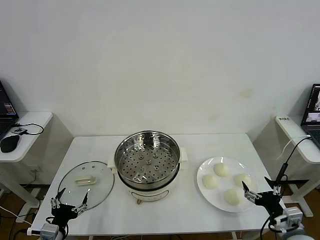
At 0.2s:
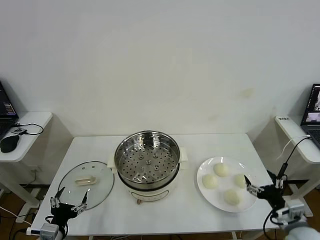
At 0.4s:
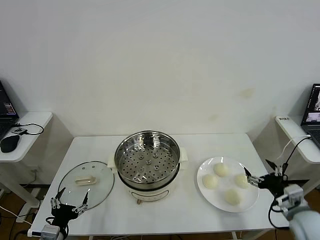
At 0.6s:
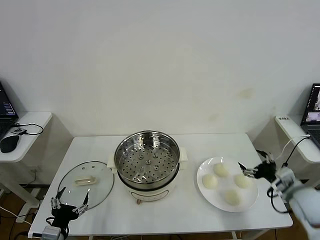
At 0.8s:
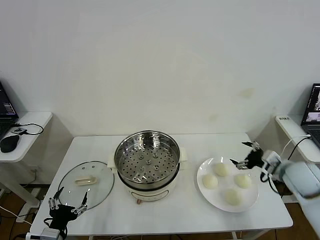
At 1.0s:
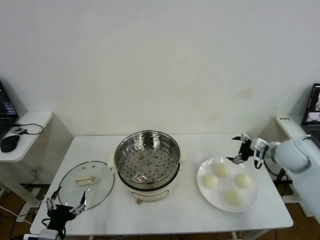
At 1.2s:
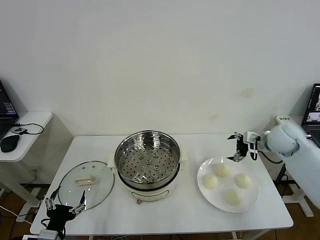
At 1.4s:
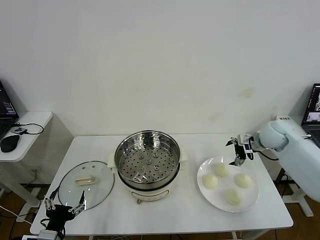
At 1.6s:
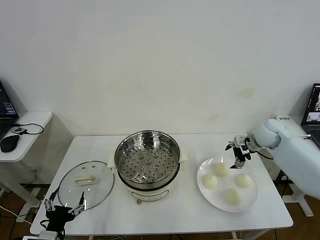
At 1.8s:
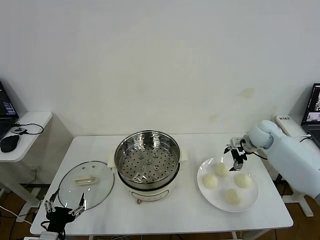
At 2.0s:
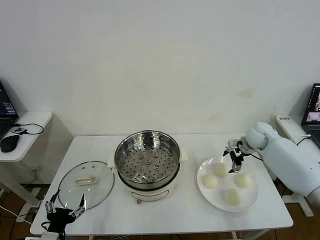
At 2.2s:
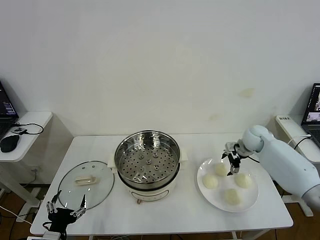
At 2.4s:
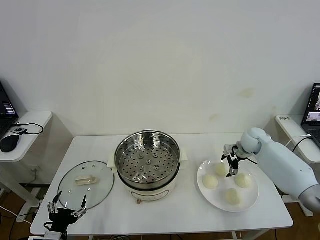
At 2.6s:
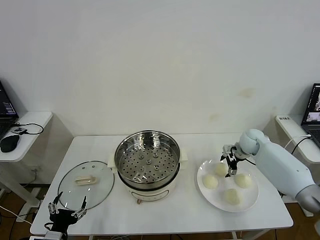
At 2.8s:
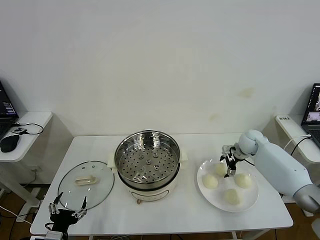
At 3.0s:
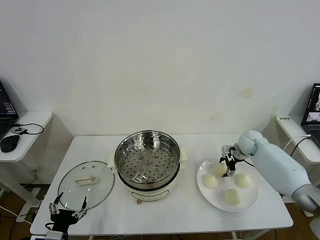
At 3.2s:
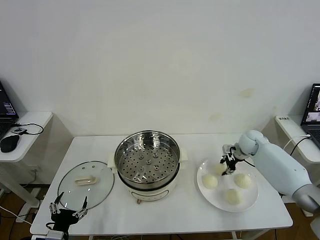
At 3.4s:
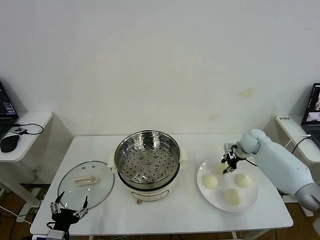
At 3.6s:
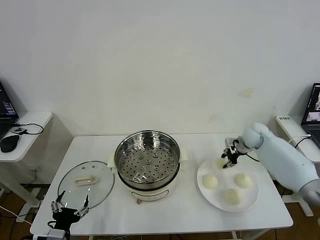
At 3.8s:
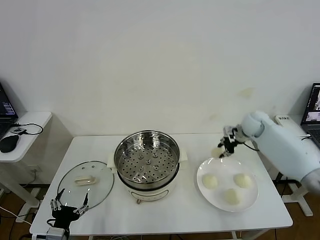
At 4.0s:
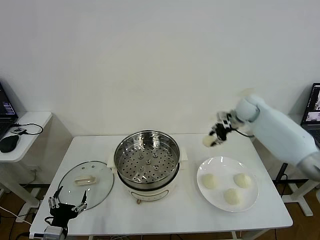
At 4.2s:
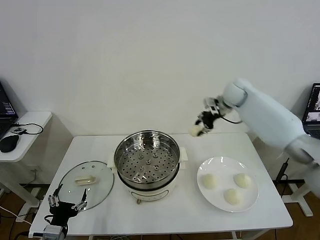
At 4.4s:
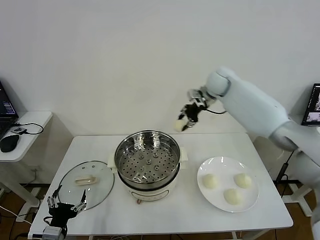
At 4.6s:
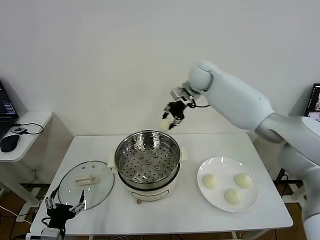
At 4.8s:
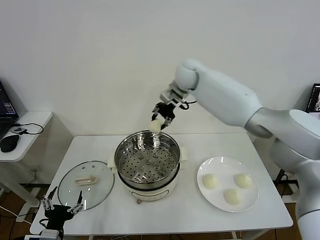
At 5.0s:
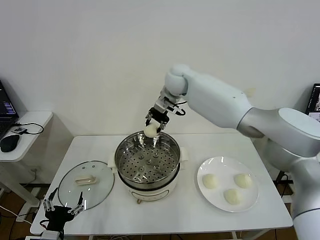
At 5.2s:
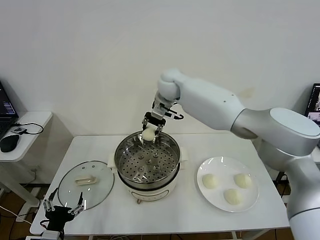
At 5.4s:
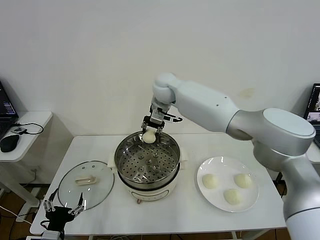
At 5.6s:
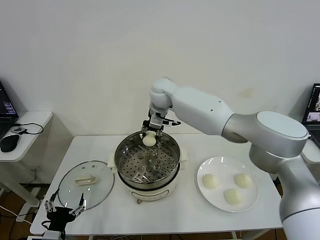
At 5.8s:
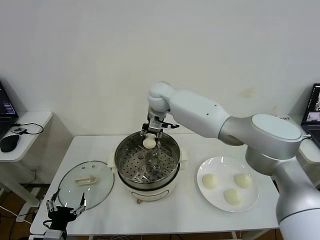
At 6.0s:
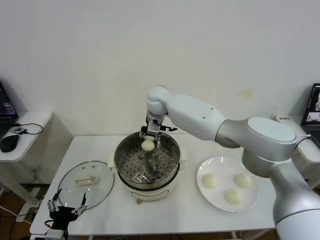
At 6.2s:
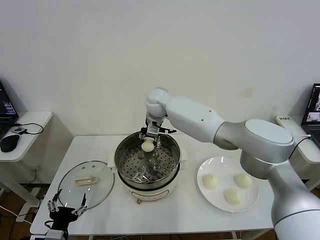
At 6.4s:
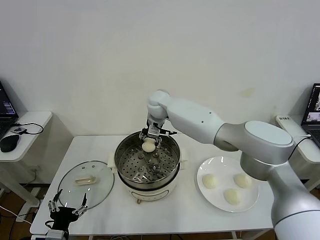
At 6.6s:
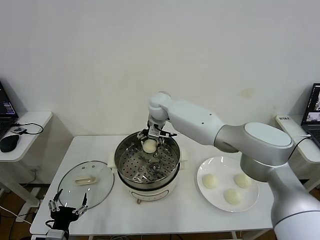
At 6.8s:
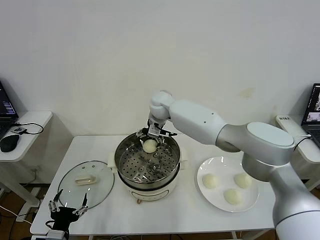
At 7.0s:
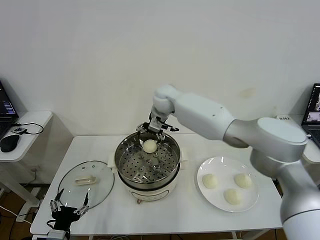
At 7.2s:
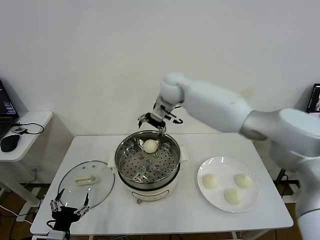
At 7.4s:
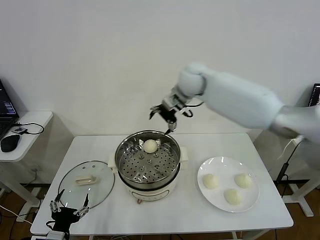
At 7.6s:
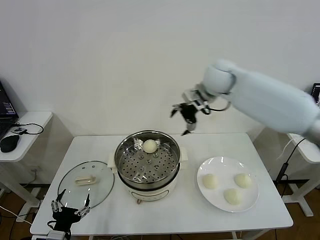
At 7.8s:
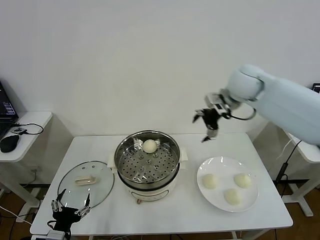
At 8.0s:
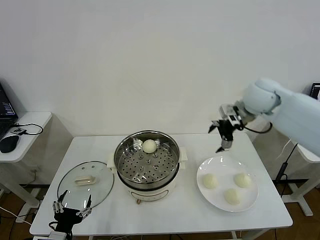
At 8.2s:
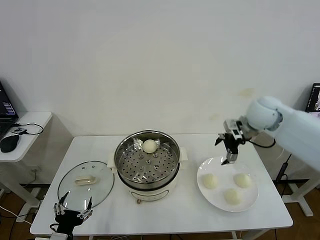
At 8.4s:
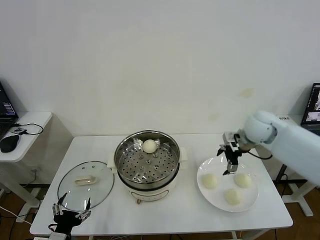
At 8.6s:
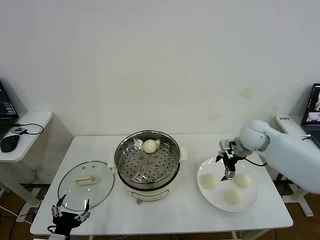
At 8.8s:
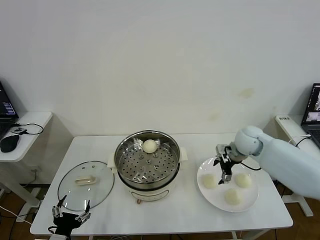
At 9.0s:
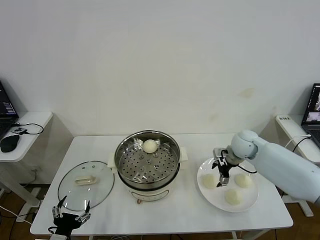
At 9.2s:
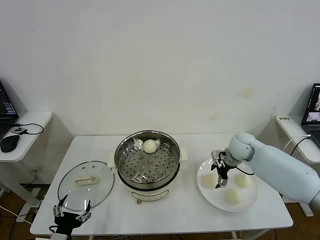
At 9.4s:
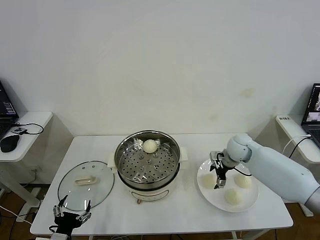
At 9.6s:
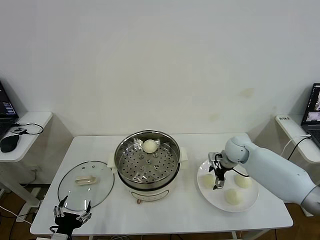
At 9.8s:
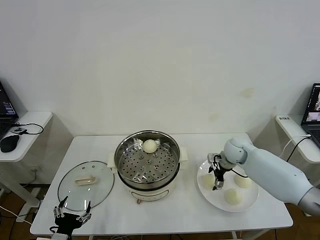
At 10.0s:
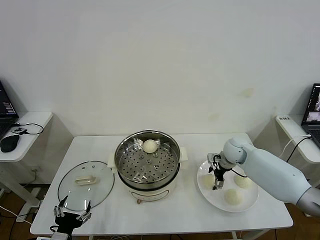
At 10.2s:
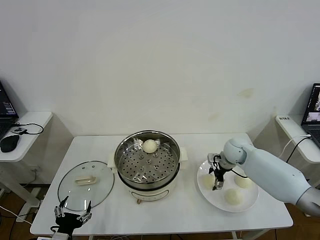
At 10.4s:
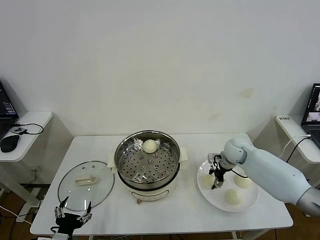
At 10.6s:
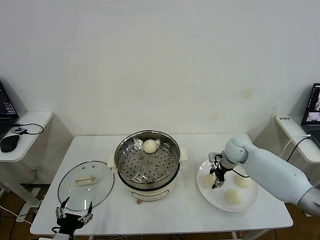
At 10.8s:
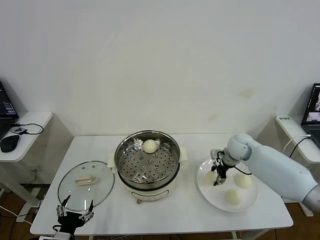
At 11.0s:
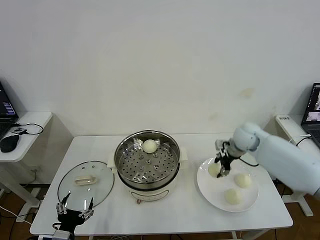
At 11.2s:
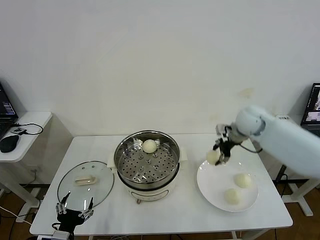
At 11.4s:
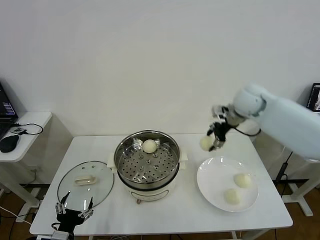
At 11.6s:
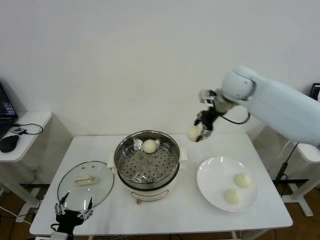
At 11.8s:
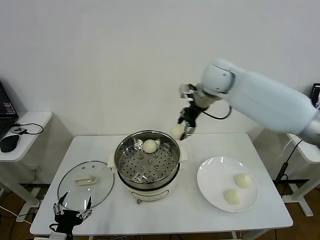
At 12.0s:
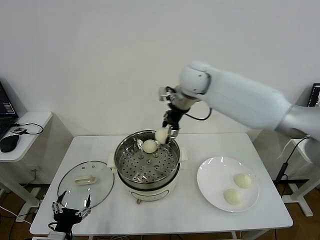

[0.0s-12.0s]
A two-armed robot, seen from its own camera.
Step, 0.0s to 3.2s: Grasp the baozi in the plate with right gripper.
Step, 3.4s to 6.4s: Place the baozi on the steamer with right gripper.
Step, 6.6s to 10.4s: Grasp the baozi in the plate with right gripper.
1.6s to 3.0s: The right gripper moves downward, approximately 10 cm, and closes up.
3.0s to 4.4s: The right gripper moves upward and to the left, some 35 cm, and closes its fingers.
4.4s to 6.0s: The right gripper moves to the left and downward, roughly 20 cm.
6.0s to 7.6s: The right gripper moves to the right and upward, roughly 25 cm, and opens.
7.6s to 9.0s: The right gripper is displaced downward by approximately 25 cm.
9.0s to 10.4s: The right gripper closes.
10.4s to 12.0s: The right gripper goes approximately 35 cm upward and to the left.

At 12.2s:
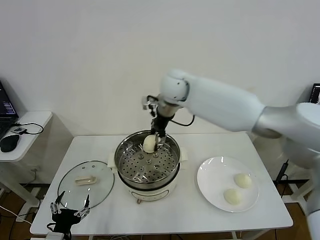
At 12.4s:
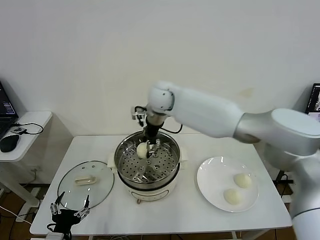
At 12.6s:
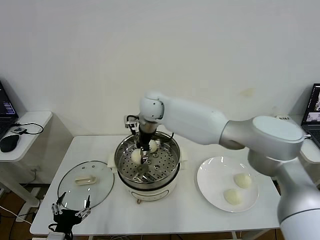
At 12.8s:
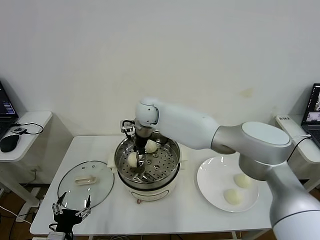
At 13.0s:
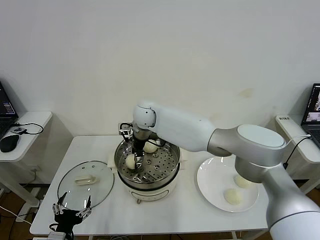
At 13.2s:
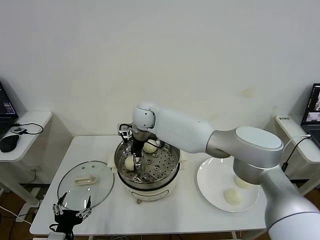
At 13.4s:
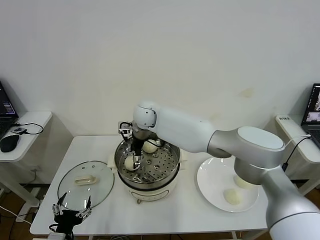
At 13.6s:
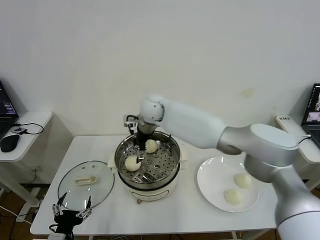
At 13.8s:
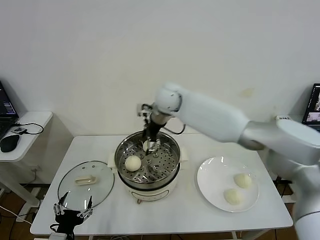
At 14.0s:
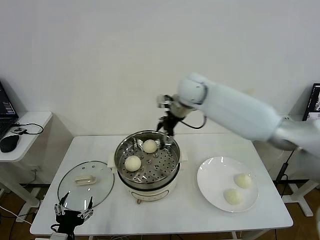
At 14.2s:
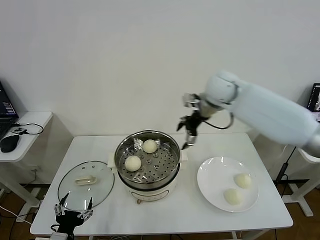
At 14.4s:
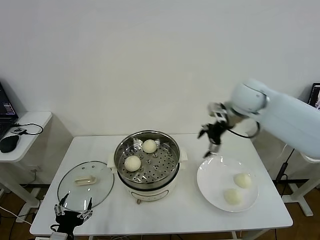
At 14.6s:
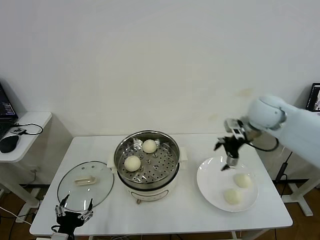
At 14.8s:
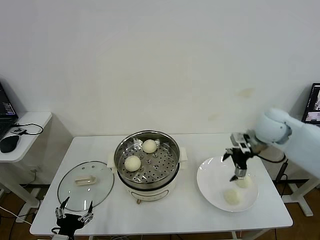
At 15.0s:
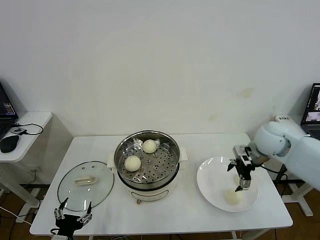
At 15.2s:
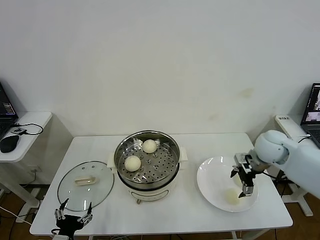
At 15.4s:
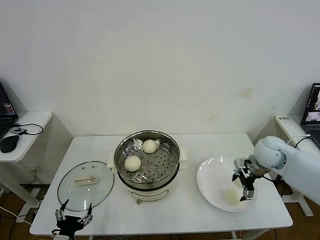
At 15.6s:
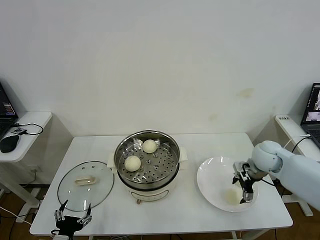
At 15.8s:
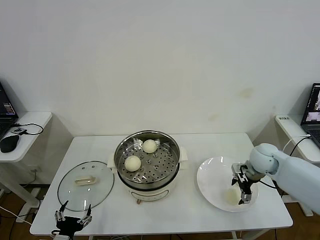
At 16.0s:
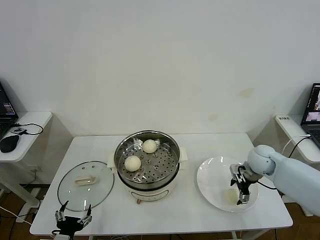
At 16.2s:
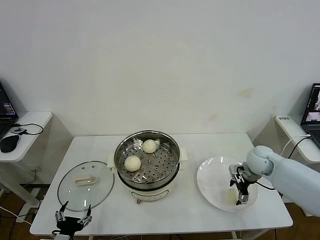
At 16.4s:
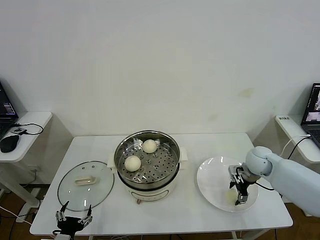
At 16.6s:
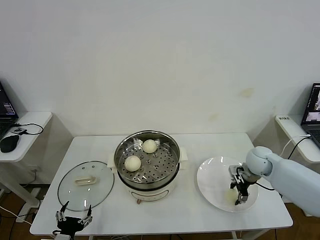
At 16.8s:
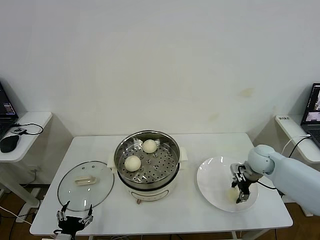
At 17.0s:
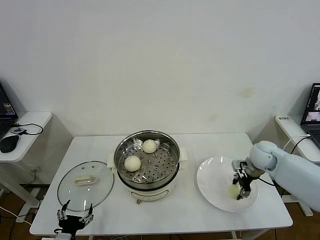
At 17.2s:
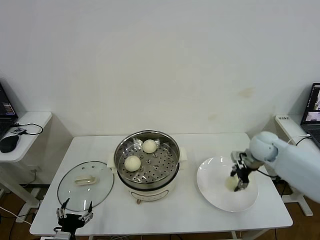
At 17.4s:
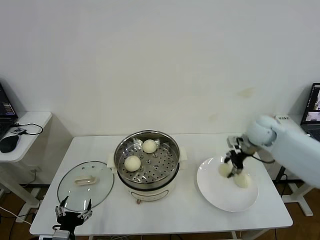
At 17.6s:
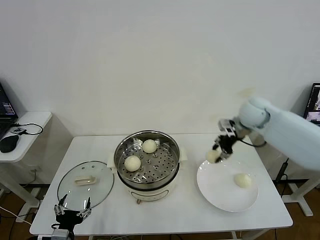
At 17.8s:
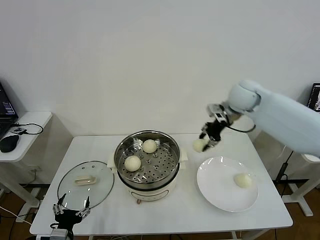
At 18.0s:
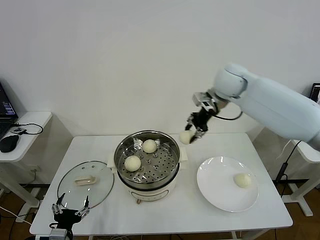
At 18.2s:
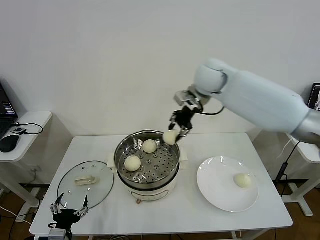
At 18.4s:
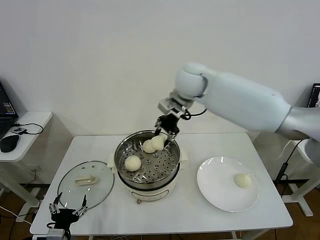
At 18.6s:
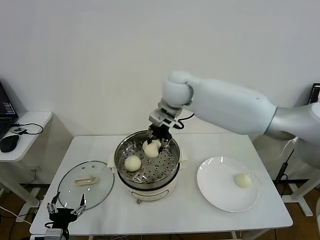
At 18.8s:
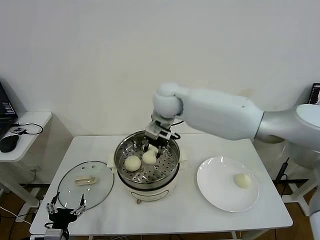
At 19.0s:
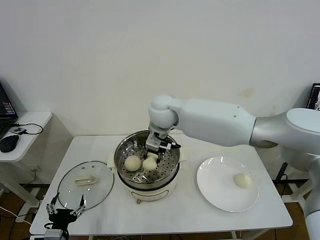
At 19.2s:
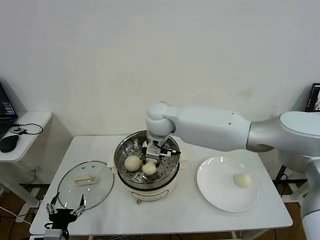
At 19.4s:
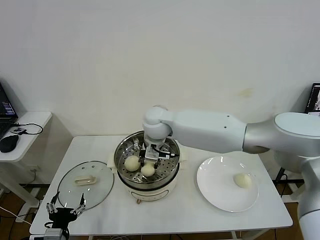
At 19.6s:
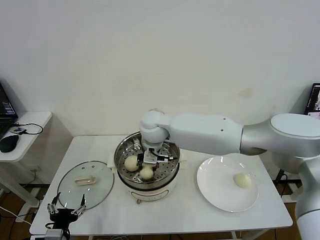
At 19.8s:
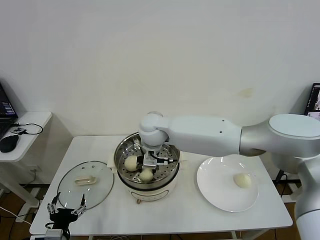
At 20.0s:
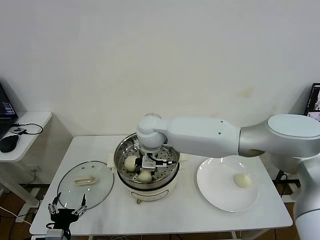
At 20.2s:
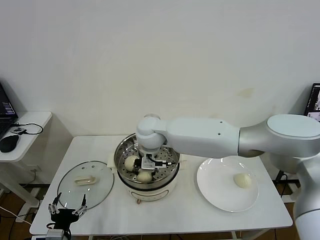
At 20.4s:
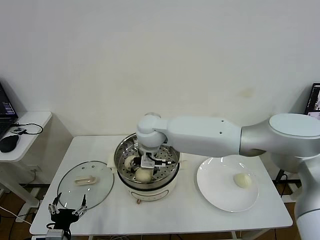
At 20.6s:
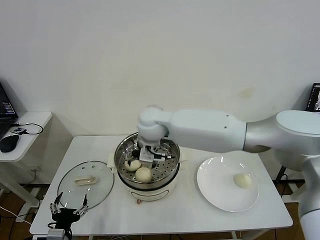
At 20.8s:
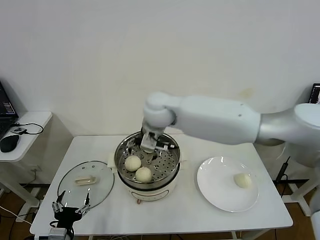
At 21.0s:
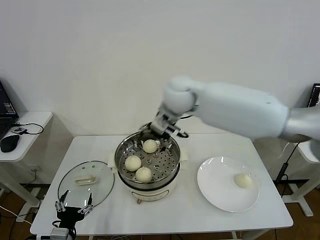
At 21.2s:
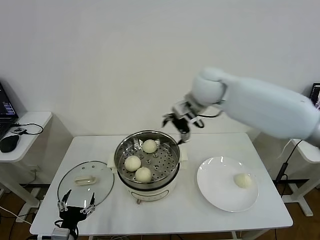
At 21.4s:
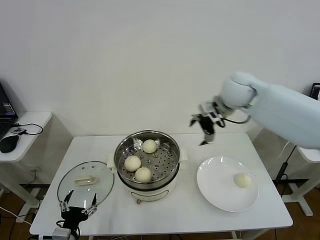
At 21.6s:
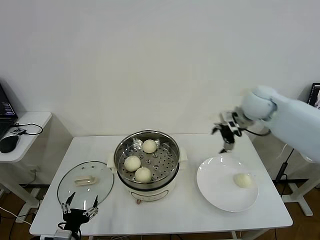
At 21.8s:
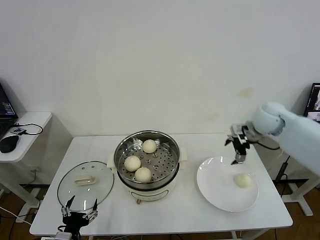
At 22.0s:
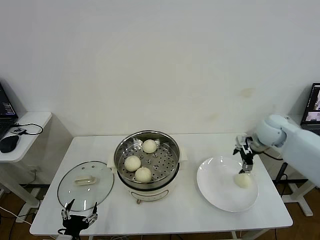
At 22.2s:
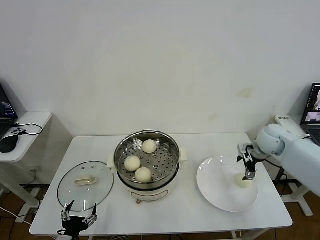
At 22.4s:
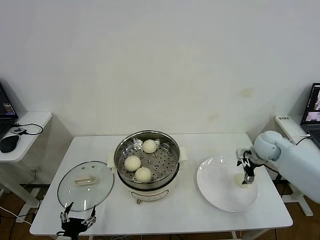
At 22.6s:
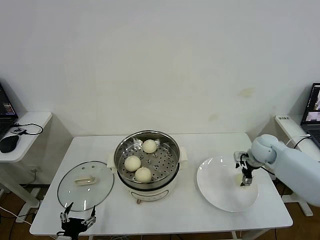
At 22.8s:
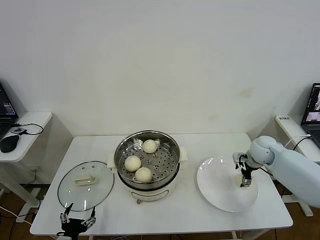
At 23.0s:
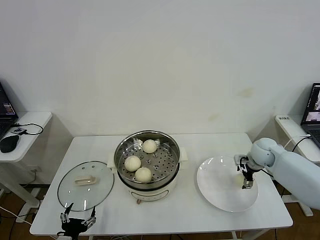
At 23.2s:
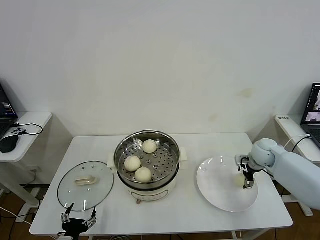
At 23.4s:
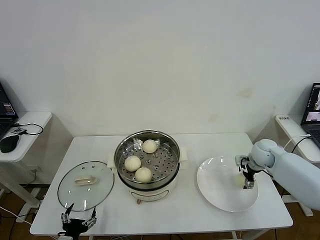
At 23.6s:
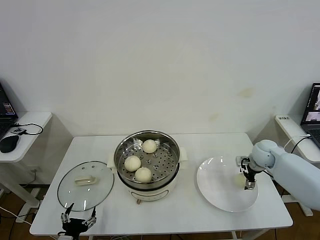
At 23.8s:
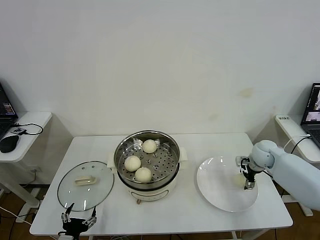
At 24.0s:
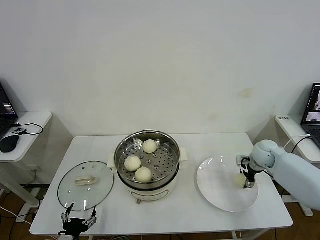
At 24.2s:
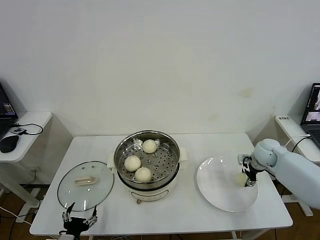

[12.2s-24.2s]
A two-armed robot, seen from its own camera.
Step, 13.4s to 16.6s: Grasp the baozi in the plate with right gripper.
Step, 16.8s to 20.4s: Place the baozi on the steamer with right gripper.
12.2s to 13.8s: The right gripper opens its fingers.
13.8s to 15.2s: The right gripper moves to the right, downward and backward, about 35 cm.
15.2s to 16.6s: The right gripper moves downward, about 10 cm, and closes.
16.6s to 18.2s: The right gripper moves upward and to the left, approximately 35 cm, and closes up.
18.2s to 19.8s: The right gripper heads to the left, downward and backward, covering approximately 20 cm.
19.8s to 21.2s: The right gripper is displaced to the right and upward by some 25 cm, and opens up.
21.2s to 22.6s: The right gripper heads downward and to the right, covering roughly 30 cm.
22.6s to 24.2s: The right gripper closes.
